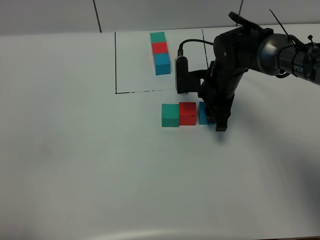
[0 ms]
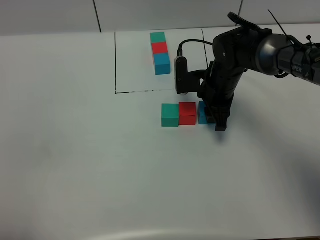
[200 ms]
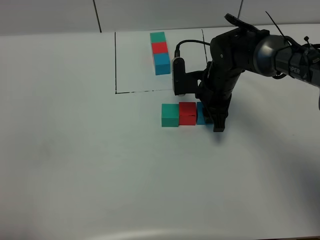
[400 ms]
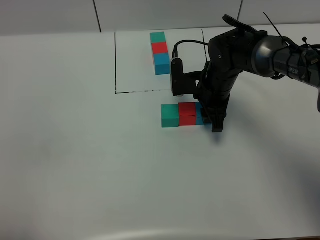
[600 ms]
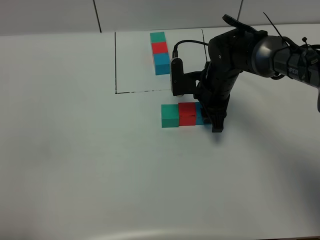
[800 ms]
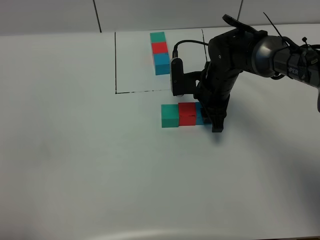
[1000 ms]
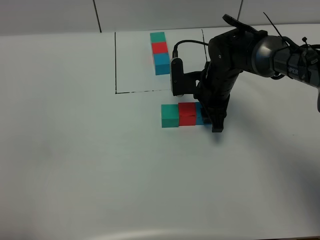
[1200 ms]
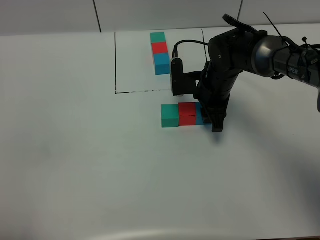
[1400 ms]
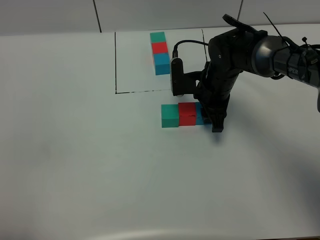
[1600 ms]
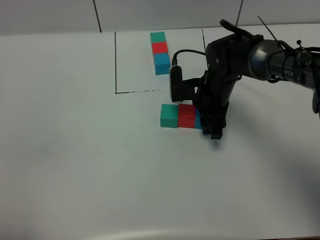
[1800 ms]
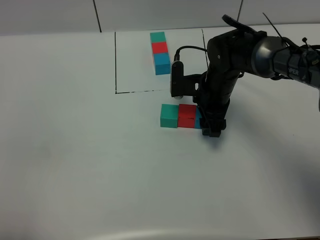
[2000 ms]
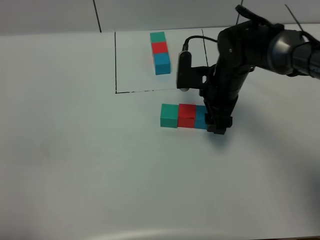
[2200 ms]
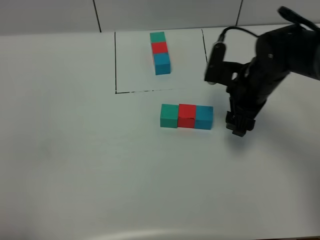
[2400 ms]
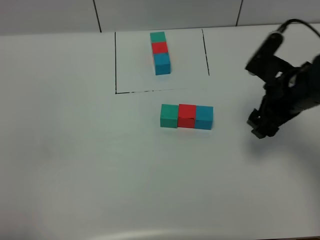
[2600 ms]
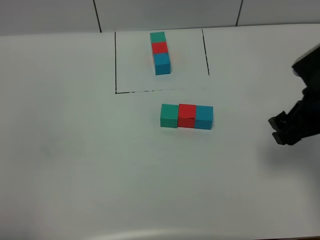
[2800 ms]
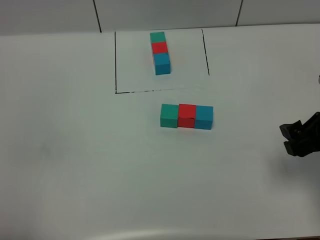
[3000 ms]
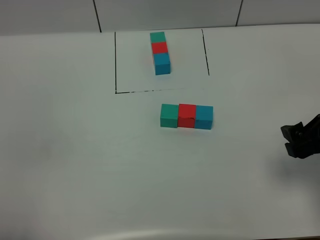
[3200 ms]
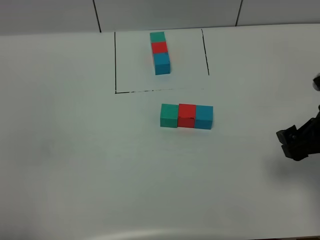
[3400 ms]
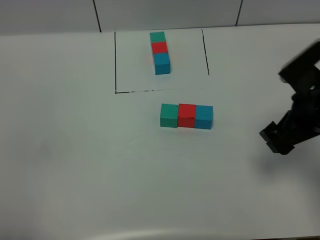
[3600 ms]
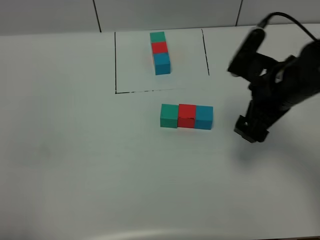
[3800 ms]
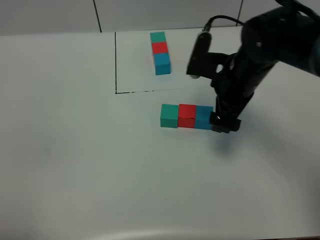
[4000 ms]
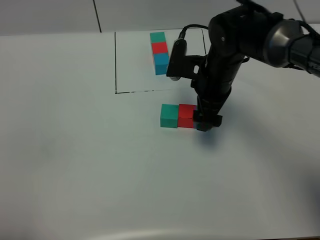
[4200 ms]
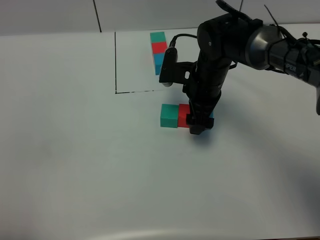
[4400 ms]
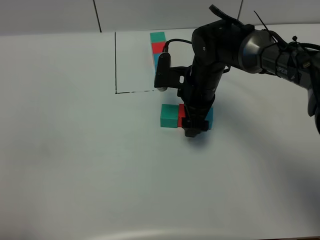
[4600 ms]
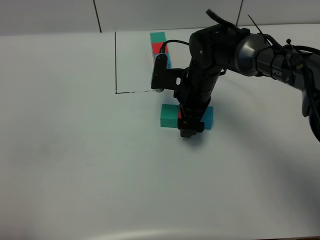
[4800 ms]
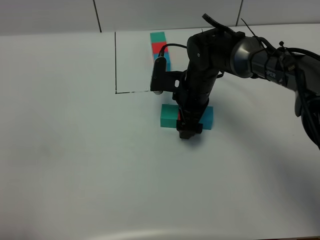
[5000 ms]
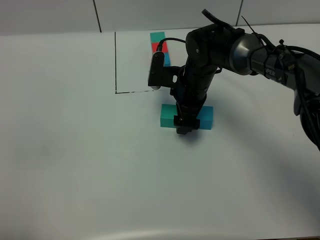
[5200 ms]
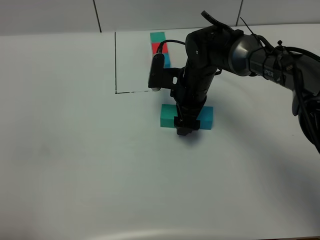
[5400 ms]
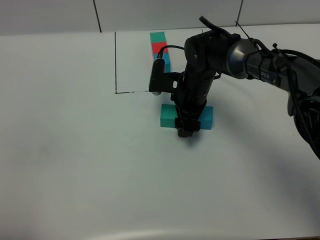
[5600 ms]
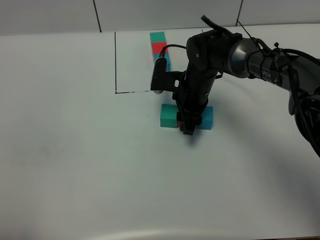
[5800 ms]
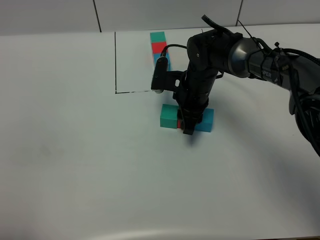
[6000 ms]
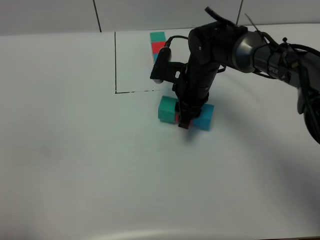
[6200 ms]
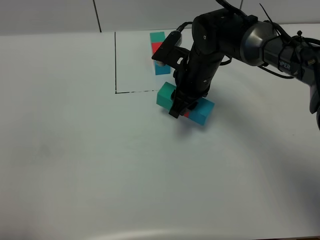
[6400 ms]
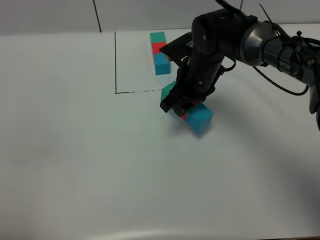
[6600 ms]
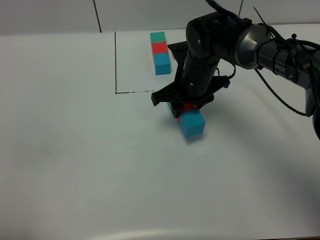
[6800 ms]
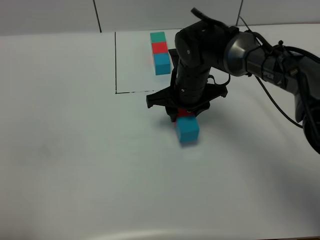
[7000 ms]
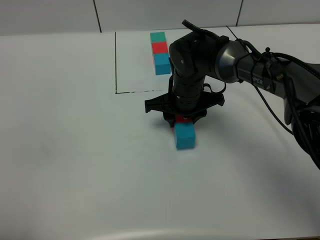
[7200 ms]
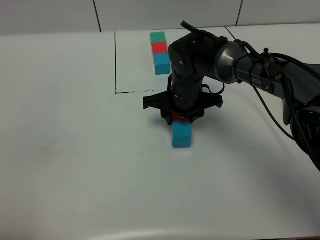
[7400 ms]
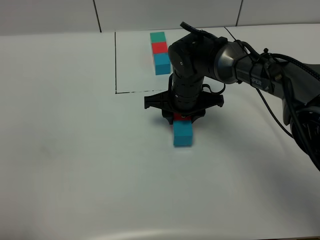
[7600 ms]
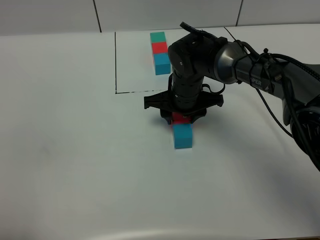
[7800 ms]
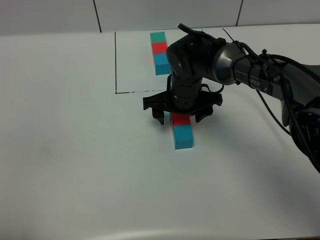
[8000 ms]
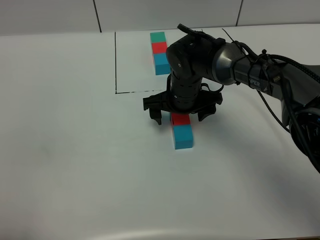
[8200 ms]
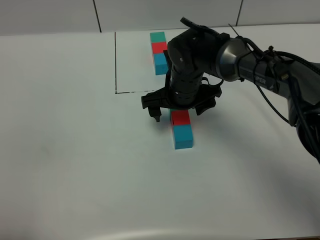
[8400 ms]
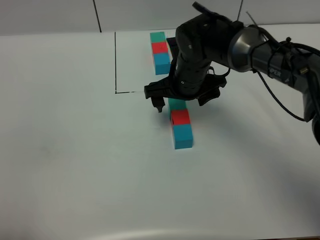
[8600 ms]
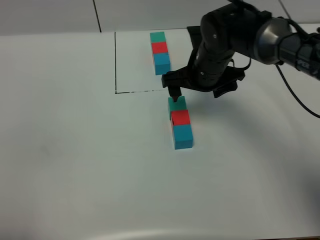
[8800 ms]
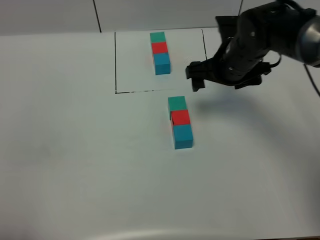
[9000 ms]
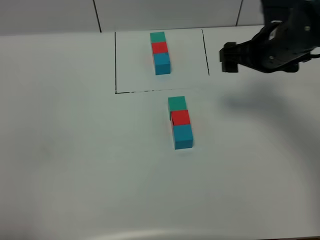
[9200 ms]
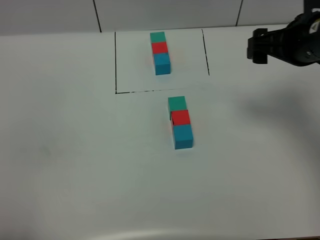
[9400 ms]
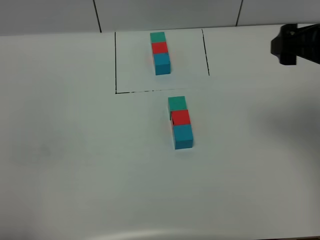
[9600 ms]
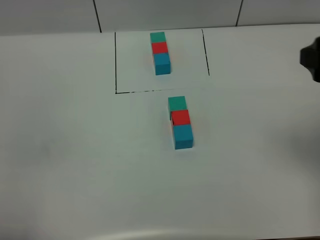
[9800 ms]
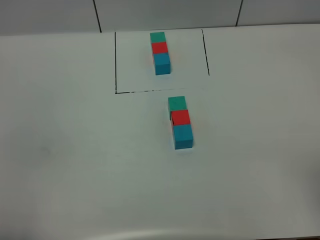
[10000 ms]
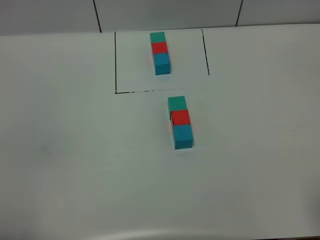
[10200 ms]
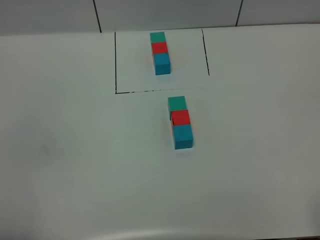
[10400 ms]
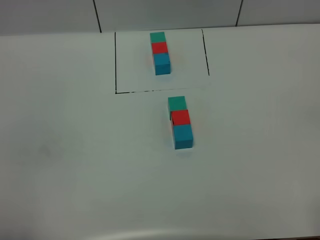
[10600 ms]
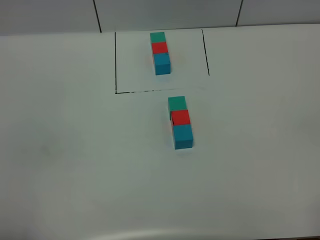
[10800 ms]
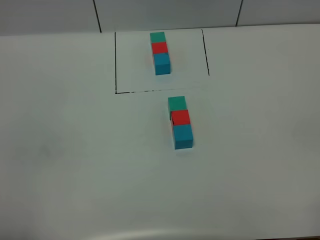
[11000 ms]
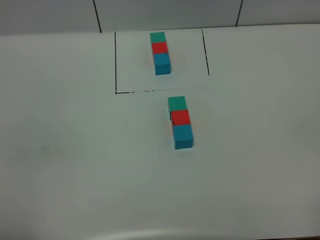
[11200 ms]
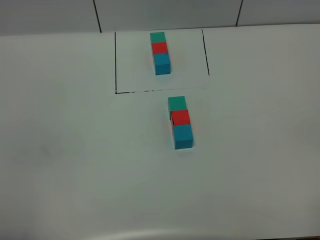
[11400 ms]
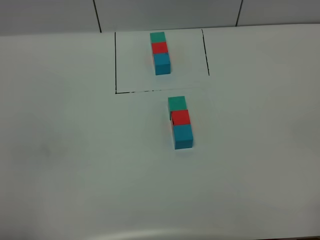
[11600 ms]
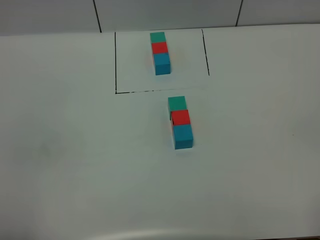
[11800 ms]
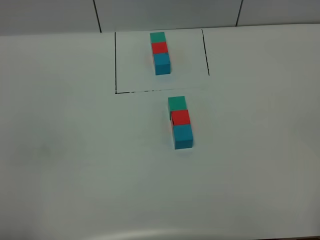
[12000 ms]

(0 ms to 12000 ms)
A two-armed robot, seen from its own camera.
Task of the whole recording: According to the building block template in front, assemble the scattered blocks together.
Step, 0 ms - 2400 ms: Put the blue cube on the right of the red cube.
Step, 2600 ms - 8600 ms: Adjust the pose of the building blocks.
0 ms - 1600 ms: Both grippers stay put.
1600 ms - 3000 ms: The right gripper is displaced backward, to the right and upward by roughly 25 cm, and opens its fingers.
3000 ms - 4400 ms: The right gripper shifts roughly 25 cm to the left, forward and downward.
4400 ms - 6000 ms: The right gripper closes up.
7600 ms - 9000 ms: The right gripper shifts about 15 cm to the right and upward, and opens its fingers.
9000 ms - 10400 ms: The right gripper heads backward and to the right, covering approximately 40 cm.

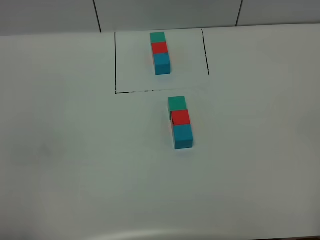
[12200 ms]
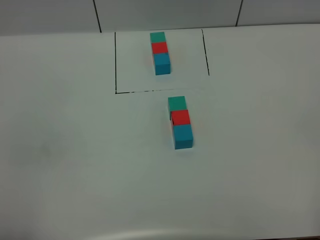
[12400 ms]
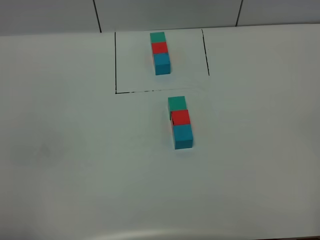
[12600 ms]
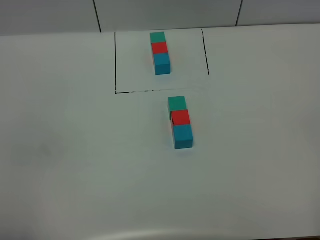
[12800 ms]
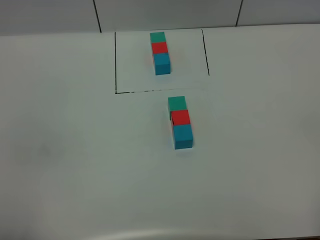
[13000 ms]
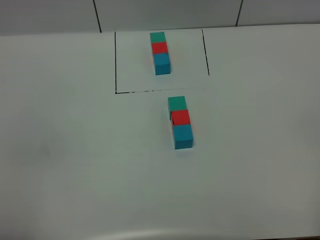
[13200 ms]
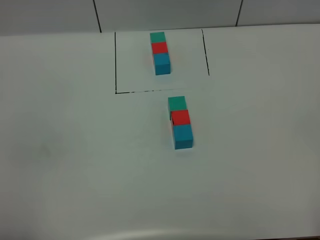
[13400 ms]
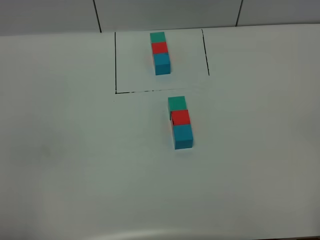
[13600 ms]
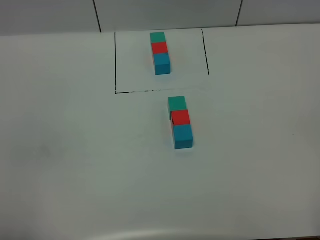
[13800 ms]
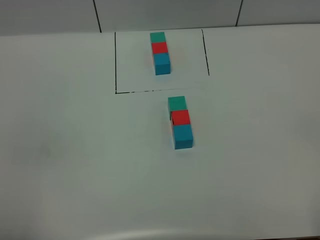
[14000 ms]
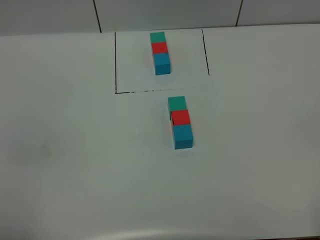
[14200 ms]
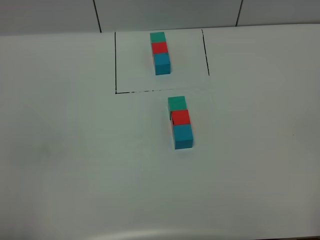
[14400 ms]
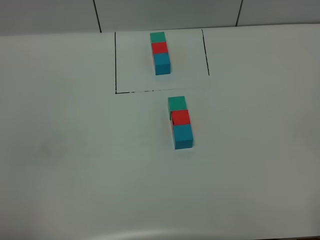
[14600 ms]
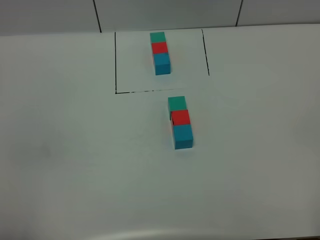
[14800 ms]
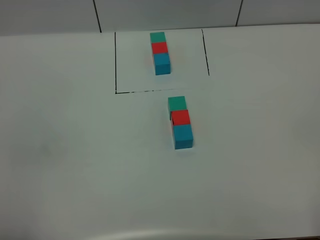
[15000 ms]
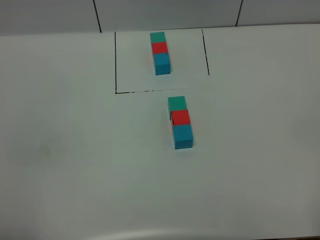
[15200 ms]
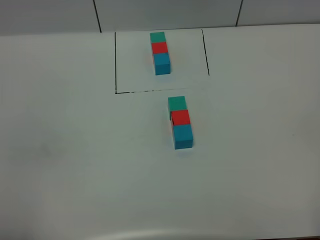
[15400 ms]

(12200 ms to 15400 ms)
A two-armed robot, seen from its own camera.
Task of the whole recording: According to the building block template in front, assemble the scattered blocks together.
12200 ms - 13800 ms: Both grippers stay about where they are.
13800 ms - 15400 ms: Neither gripper changes place.

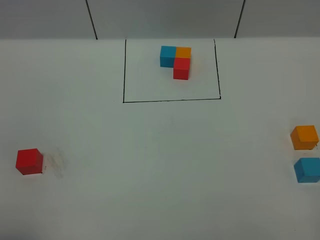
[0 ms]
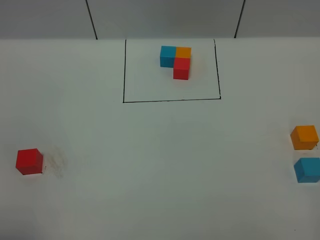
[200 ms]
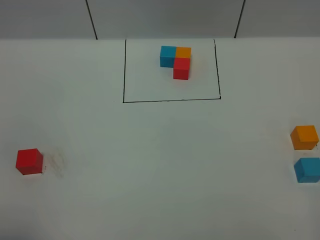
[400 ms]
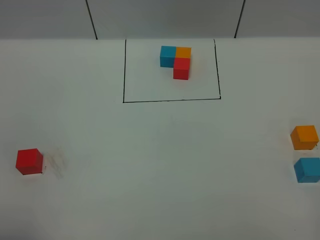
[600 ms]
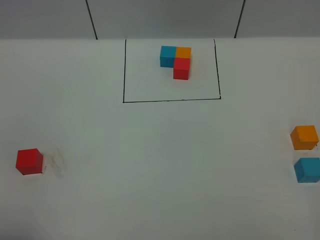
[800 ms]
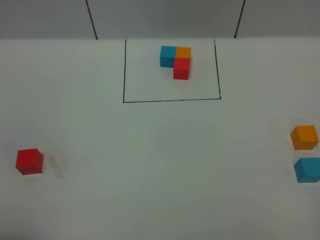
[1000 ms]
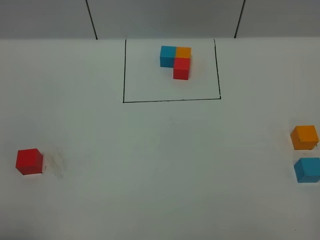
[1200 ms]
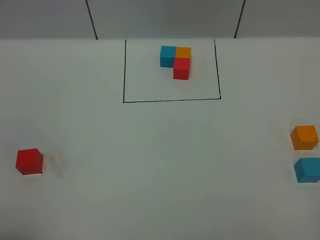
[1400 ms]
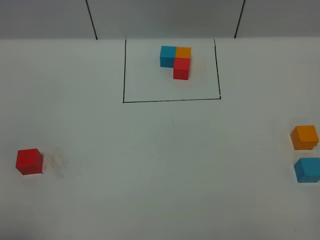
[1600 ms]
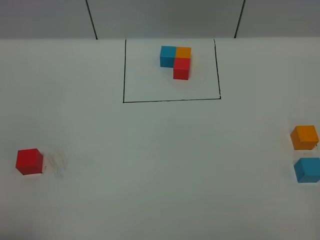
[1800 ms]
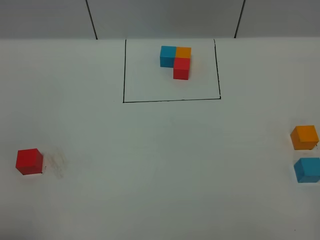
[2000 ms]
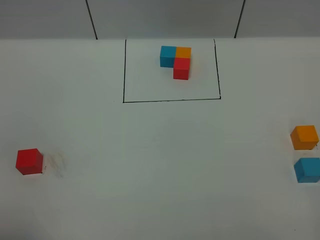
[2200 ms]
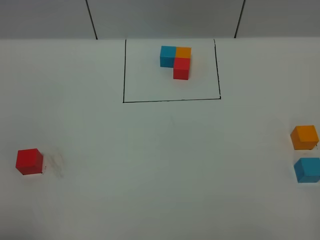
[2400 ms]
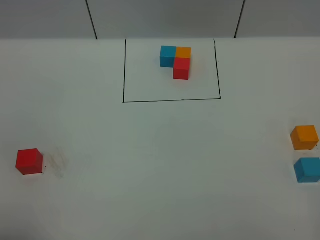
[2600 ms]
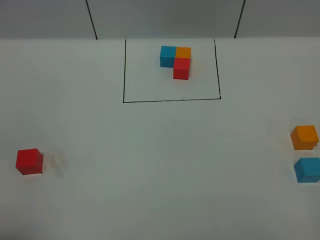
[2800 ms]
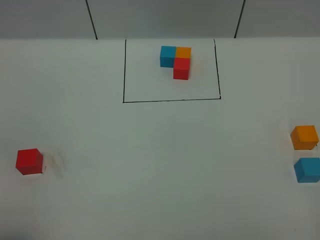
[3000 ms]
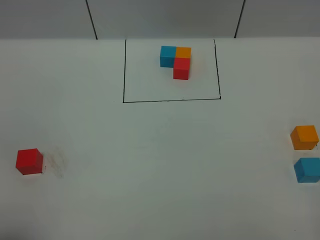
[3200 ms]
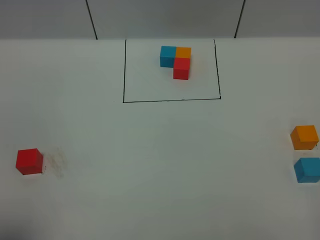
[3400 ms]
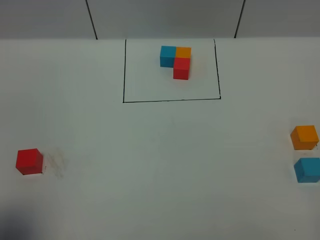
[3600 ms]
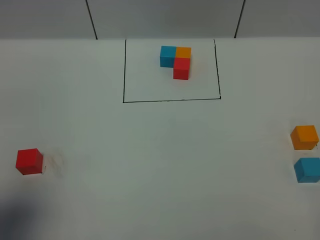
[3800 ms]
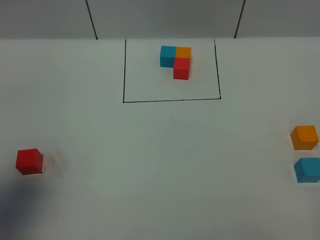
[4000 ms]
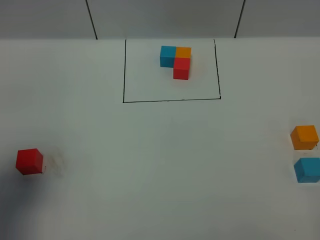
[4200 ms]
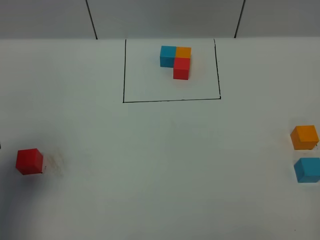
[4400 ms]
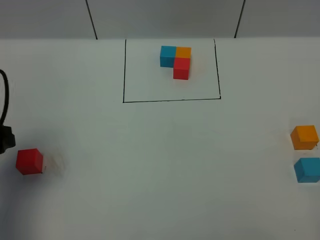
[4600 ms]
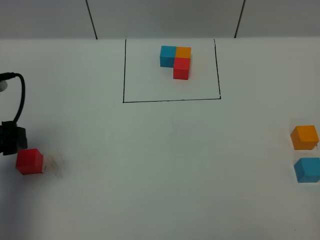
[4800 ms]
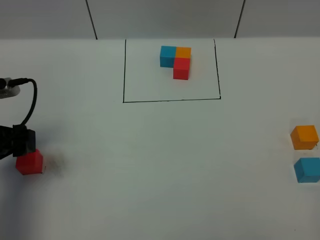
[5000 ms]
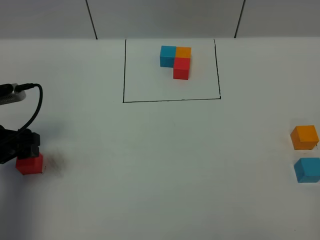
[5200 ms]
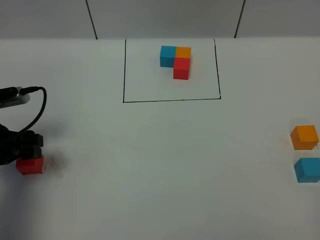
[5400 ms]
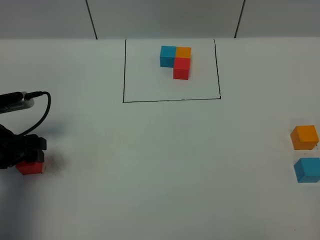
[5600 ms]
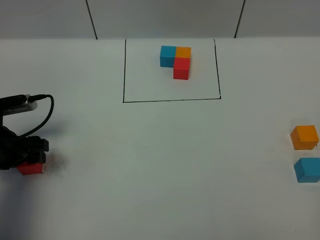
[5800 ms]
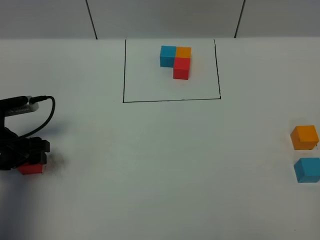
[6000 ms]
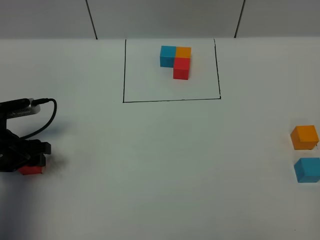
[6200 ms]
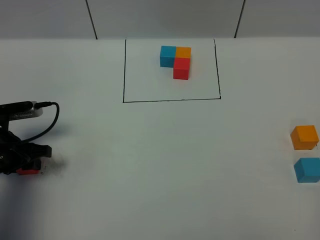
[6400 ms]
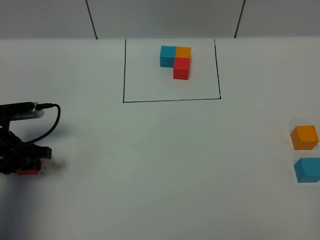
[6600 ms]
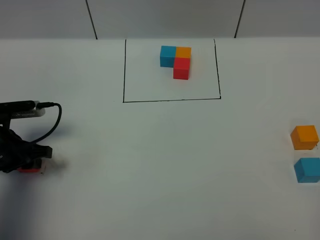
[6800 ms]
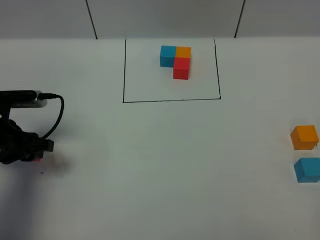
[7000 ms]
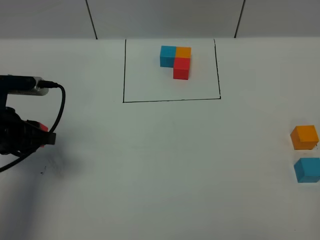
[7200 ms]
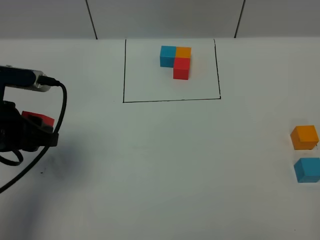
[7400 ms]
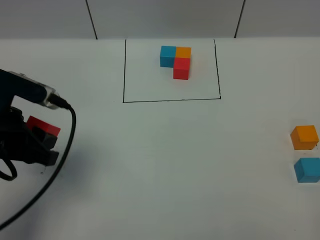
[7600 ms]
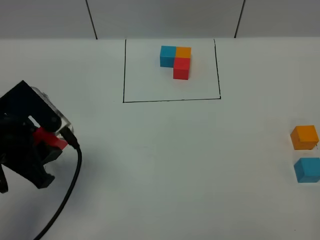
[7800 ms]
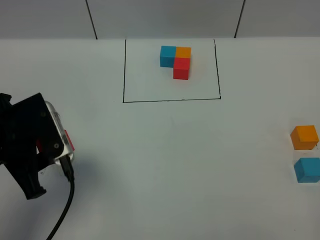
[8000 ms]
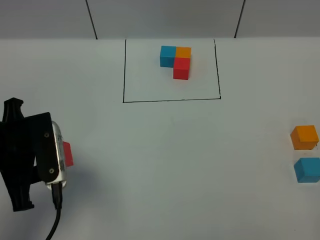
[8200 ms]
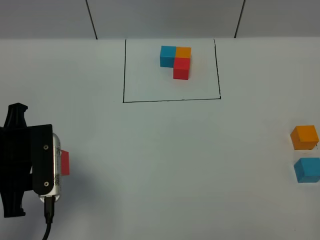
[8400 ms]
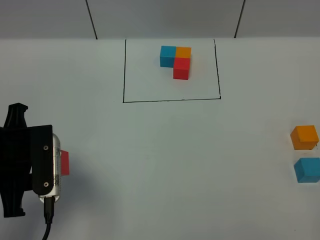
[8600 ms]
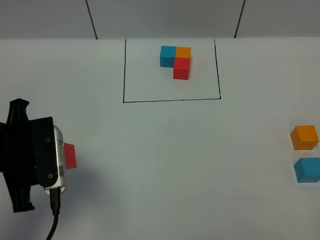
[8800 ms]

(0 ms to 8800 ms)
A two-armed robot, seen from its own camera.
Task of the whole recording: According to the building block template in front, assemble the scattered blocks together.
0 ms - 1400 ms: Both grippers stay put.
3000 ms - 4400 ms: The left gripper moves forward, roughly 20 cm.
4400 ms - 5800 ms: The left gripper moves downward and forward, about 15 cm.
5800 ms - 7400 ms: The left gripper moves upward and to the right, approximately 10 cm, and closes its fingers.
